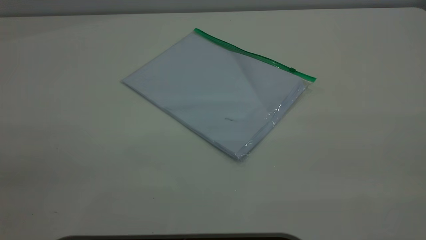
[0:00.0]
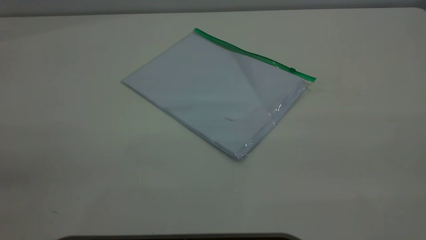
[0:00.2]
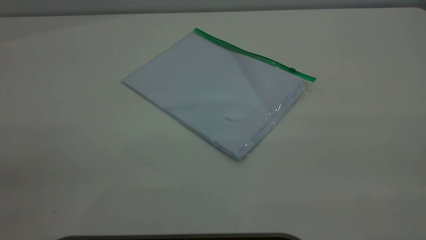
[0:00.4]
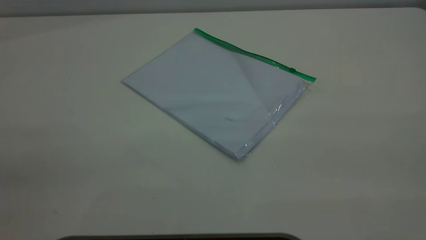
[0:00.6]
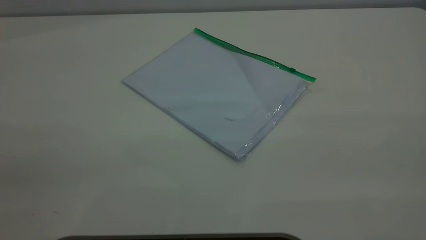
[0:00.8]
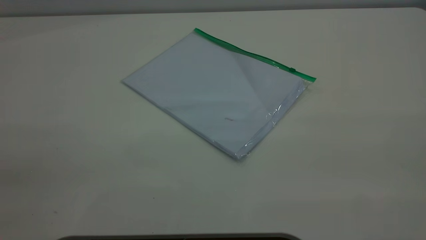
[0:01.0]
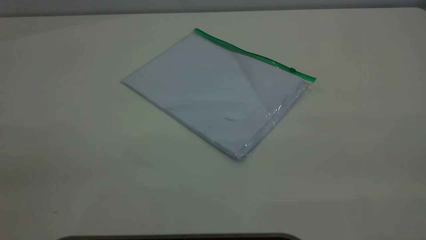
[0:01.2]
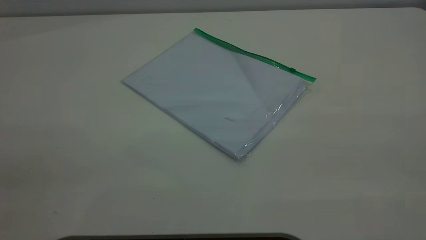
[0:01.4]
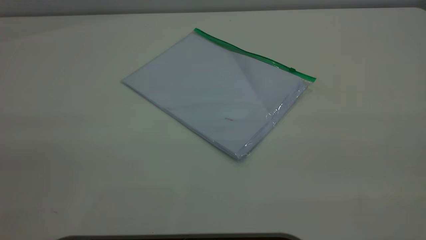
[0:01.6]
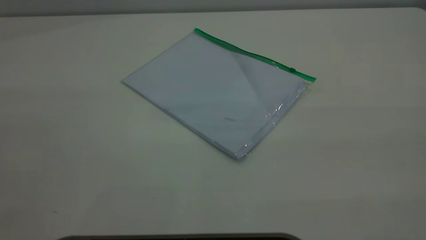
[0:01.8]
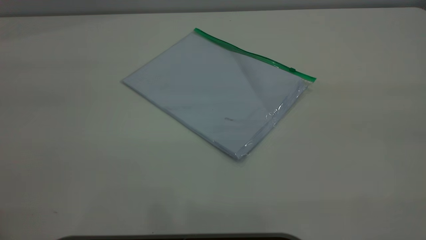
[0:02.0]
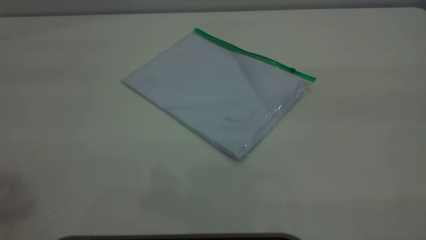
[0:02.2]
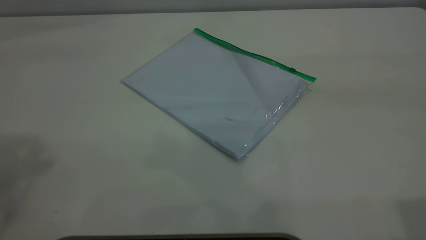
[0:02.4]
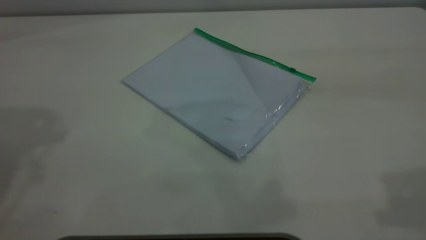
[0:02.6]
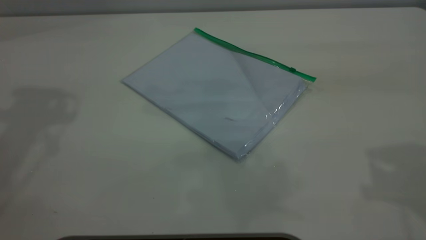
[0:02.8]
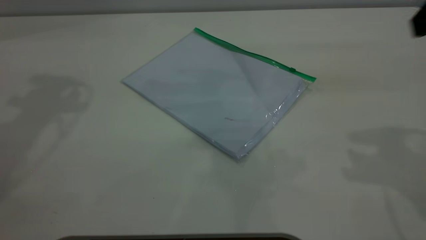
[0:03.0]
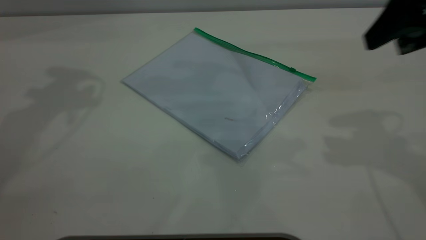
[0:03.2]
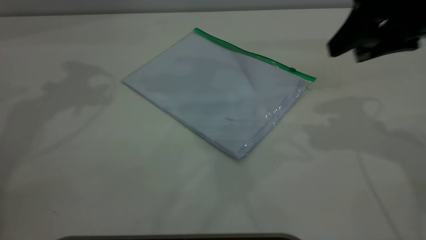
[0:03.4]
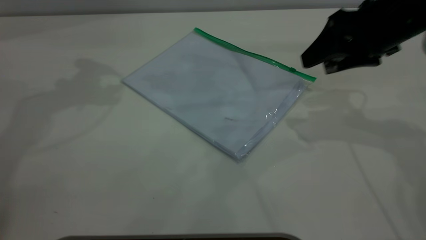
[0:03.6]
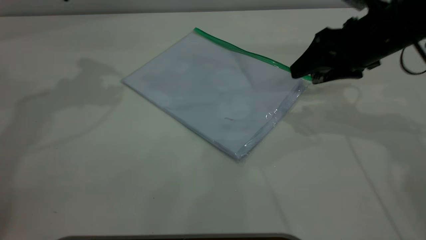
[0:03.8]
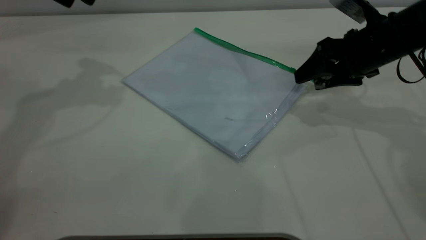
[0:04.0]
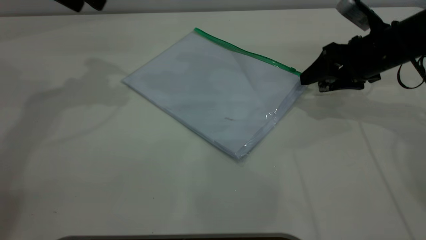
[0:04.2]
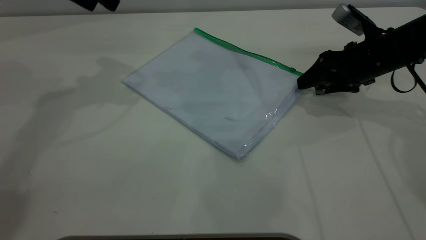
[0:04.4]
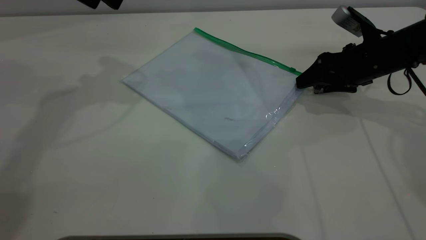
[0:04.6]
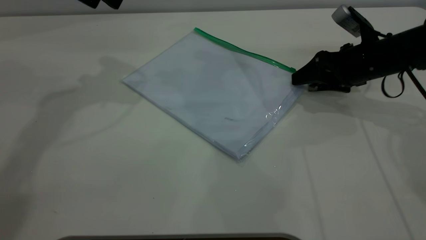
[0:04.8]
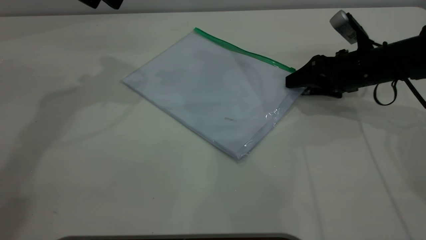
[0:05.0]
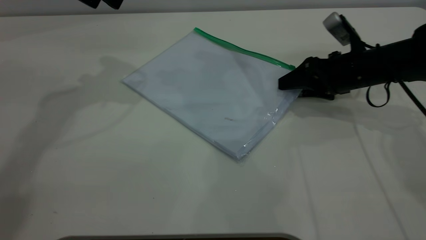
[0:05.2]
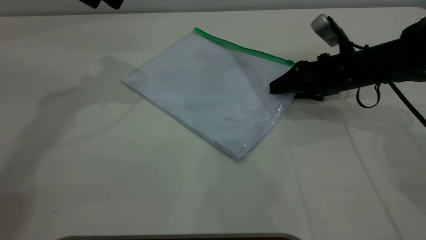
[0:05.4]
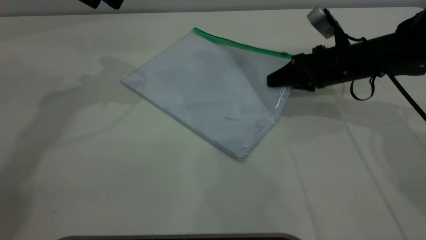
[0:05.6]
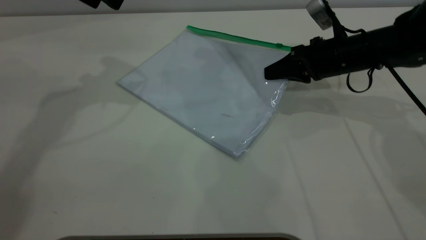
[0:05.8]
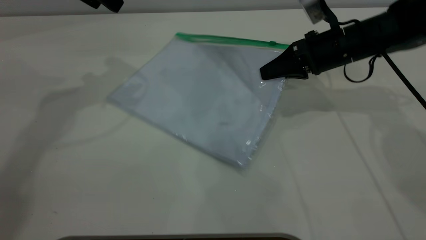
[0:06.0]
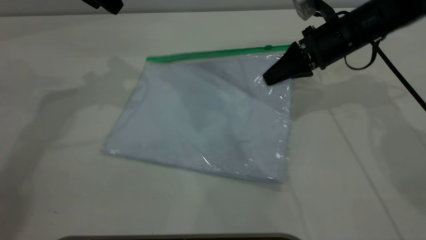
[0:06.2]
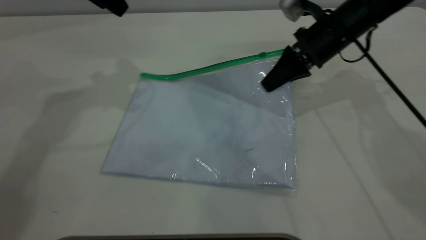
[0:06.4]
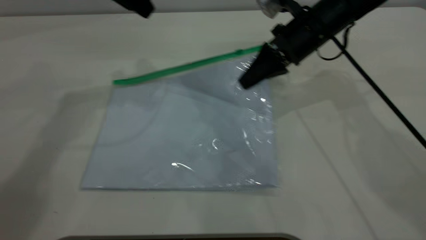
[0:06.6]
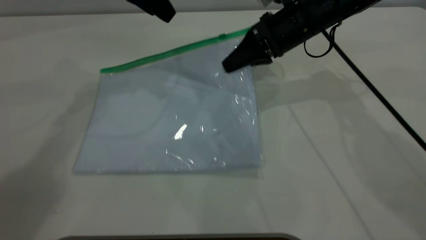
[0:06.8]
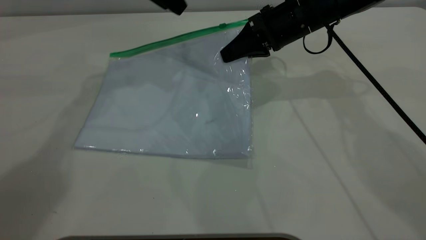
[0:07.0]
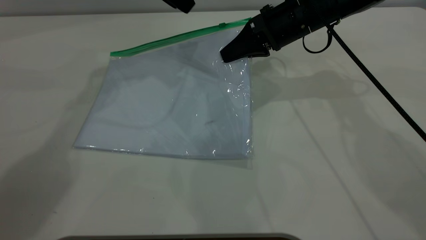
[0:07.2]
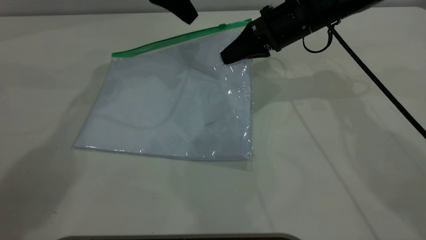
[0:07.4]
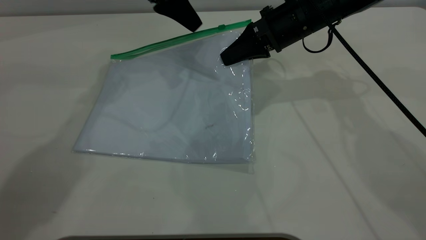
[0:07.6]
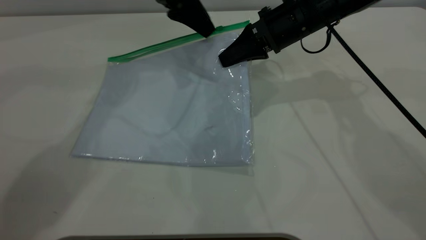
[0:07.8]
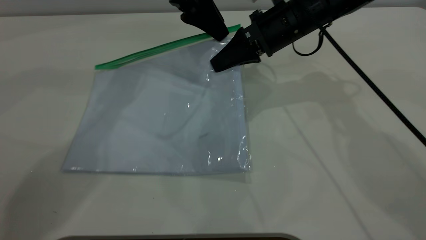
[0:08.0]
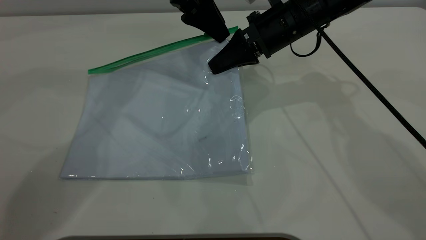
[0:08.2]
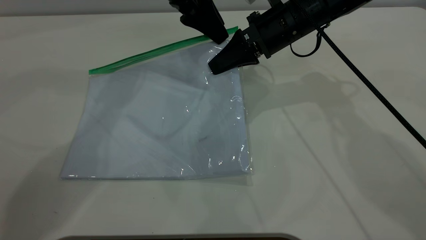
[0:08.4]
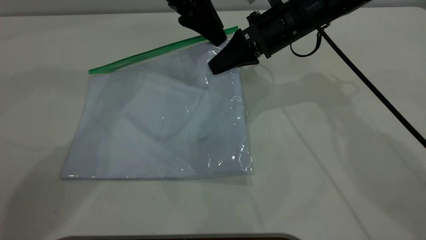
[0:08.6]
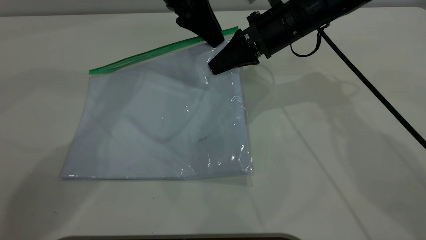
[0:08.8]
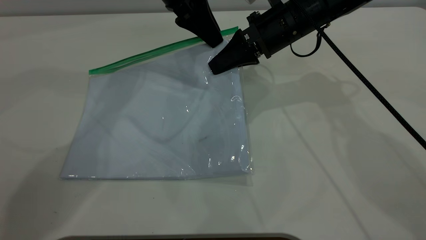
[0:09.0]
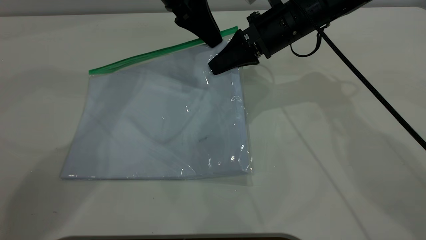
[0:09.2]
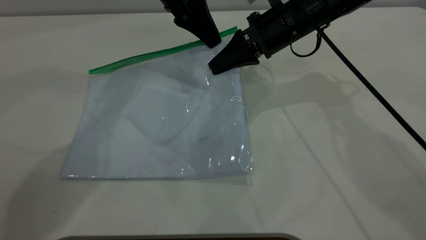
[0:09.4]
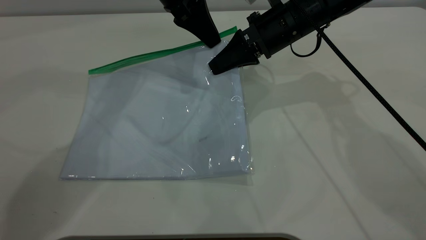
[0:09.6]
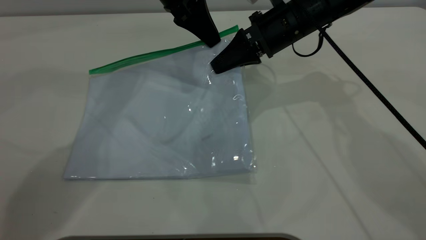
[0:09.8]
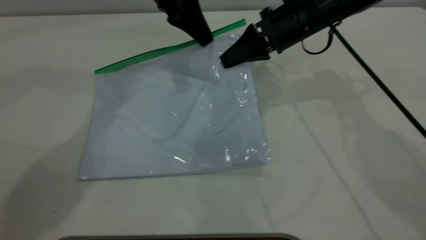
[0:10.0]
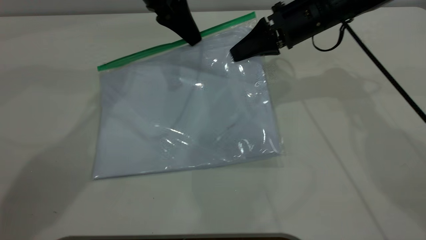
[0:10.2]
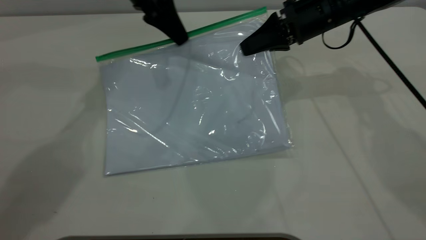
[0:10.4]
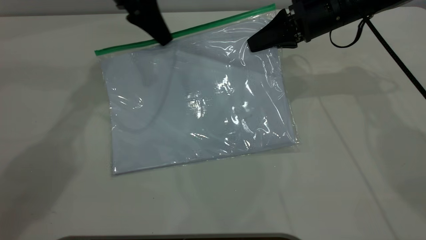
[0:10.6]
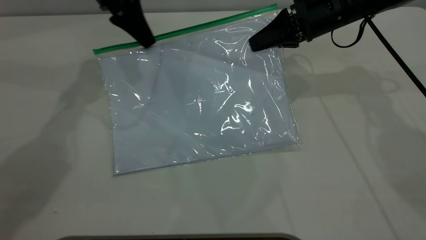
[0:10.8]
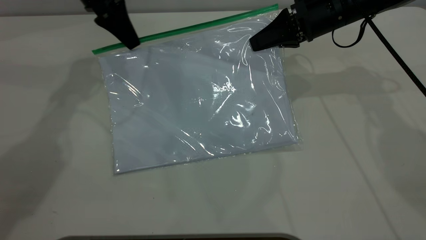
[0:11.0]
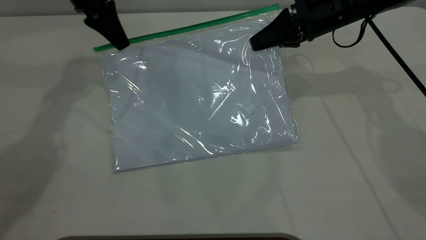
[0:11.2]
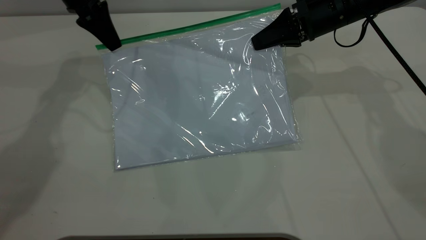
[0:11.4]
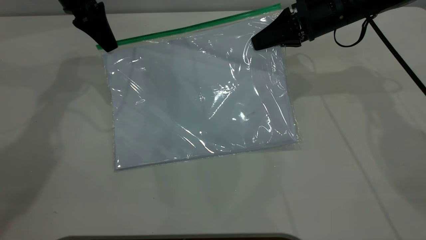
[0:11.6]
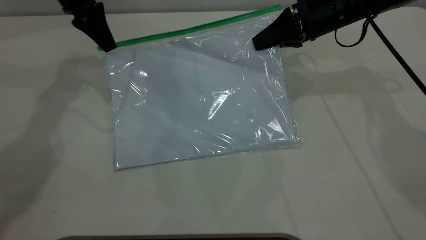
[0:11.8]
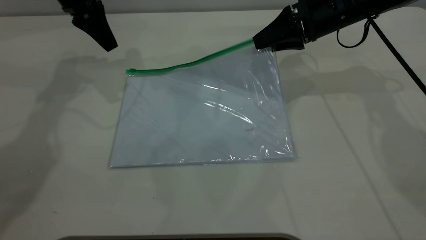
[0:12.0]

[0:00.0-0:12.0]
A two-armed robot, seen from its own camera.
Step, 0:00.0 to 0:05.4: Pick up the transparent plastic bag with the right gripper.
Step, 0:05.8 to 0:11.8: Pulling up the zipper on the transparent plastic bag with the left gripper to close it.
0:03.0 to 0:04.4: The right gripper goes approximately 25 cm downward and forward.
0:04.4 to 0:06.0: The right gripper moves to the left, roughly 5 cm, and closes.
0:06.0 to 0:07.6: The left gripper shifts approximately 15 cm to the right, forward and downward. The right gripper is displaced to the left by about 5 cm.
0:07.6 to 0:09.0: The left gripper closes its fingers.
0:09.0 to 0:10.4: The left gripper travels to the left by about 5 cm, and closes up. The right gripper heads to the right, covering about 5 cm.
0:10.4 to 0:12.0: The right gripper opens its fingers; the left gripper moves to the left, about 10 cm, and opens.

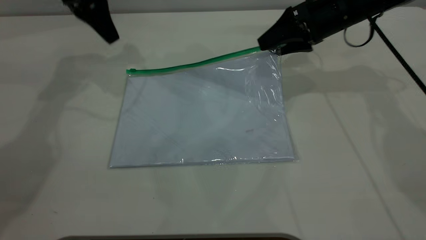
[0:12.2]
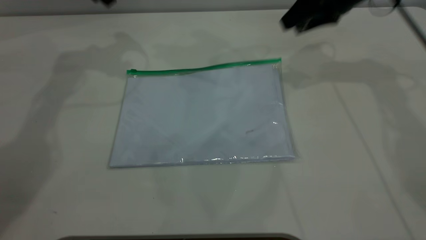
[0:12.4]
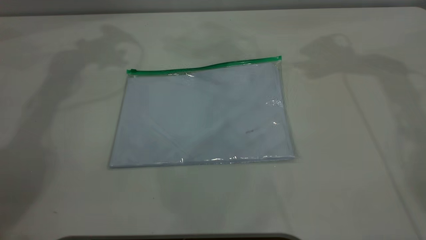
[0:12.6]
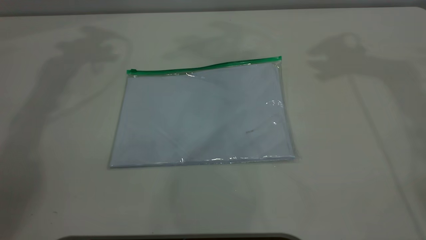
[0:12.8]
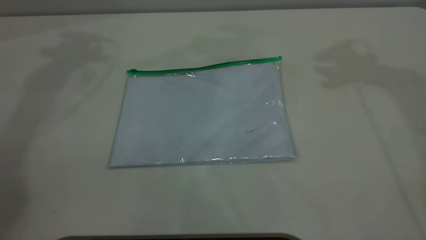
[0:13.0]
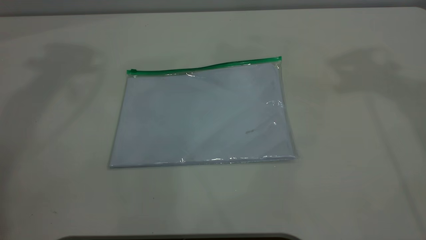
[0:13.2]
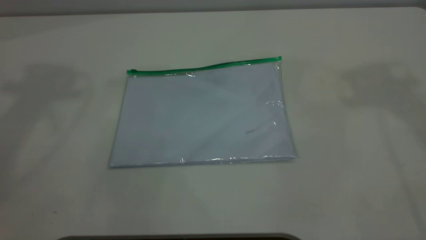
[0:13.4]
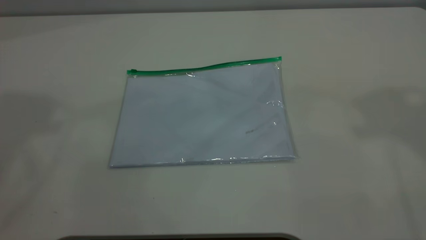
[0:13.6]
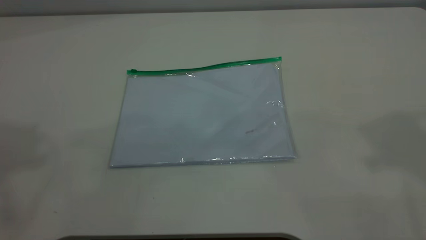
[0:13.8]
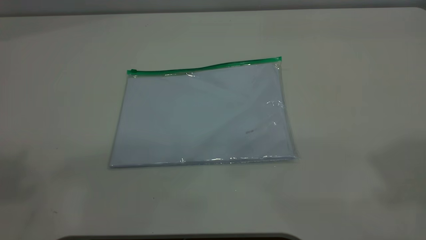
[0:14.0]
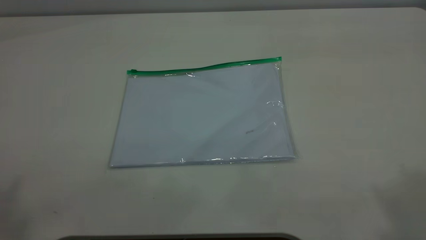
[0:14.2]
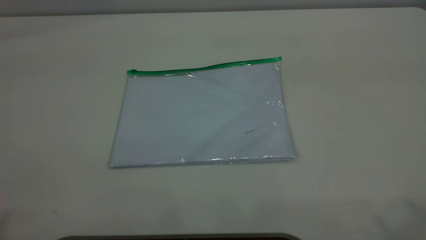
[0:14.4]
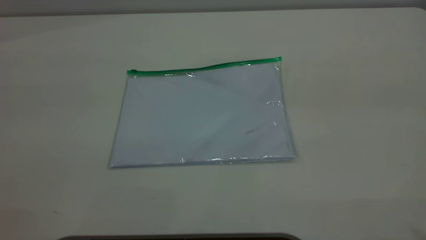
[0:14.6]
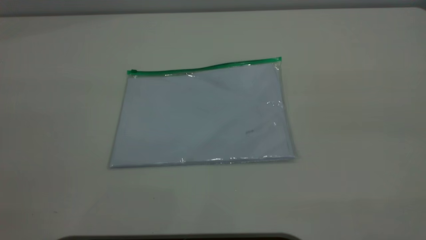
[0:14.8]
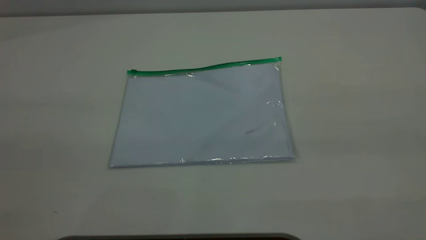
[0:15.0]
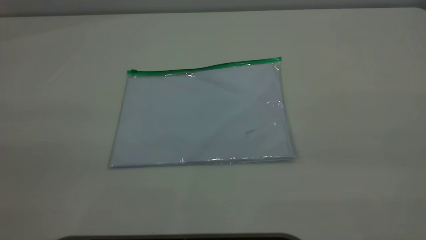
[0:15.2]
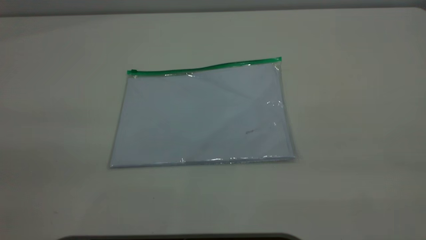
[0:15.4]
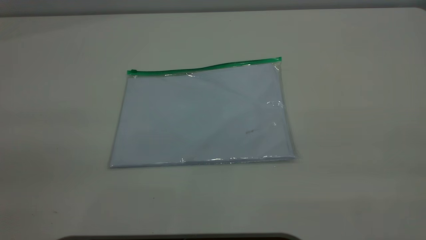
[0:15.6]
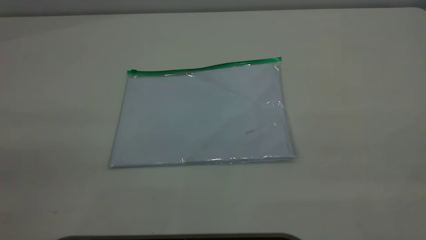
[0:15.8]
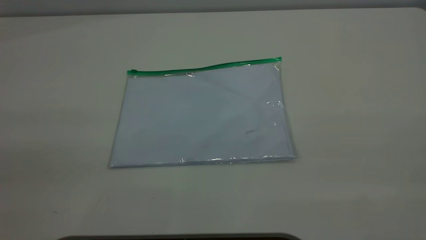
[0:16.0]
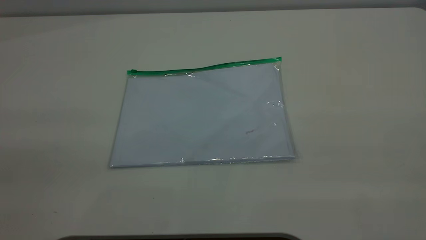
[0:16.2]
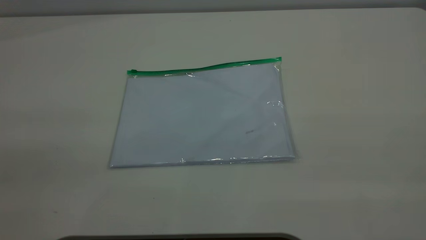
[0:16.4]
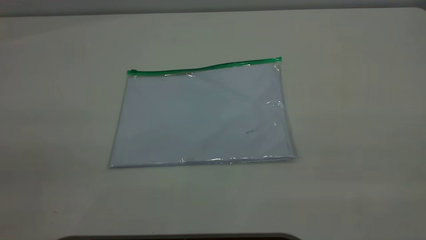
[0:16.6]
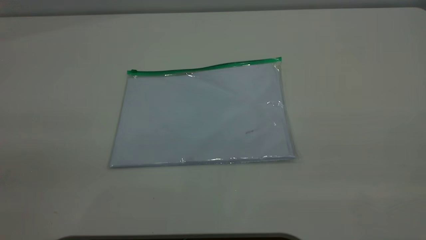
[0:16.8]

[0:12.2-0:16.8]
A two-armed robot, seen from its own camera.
0:12.2 to 0:13.8: Both grippers travel together upward and backward, approximately 50 cm.
